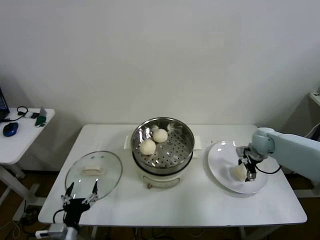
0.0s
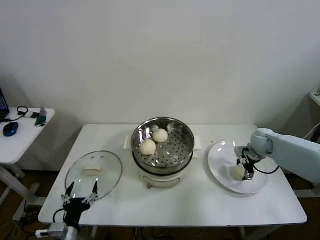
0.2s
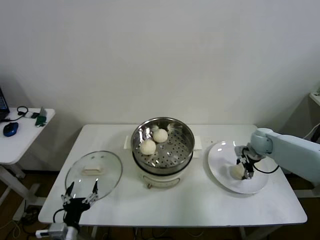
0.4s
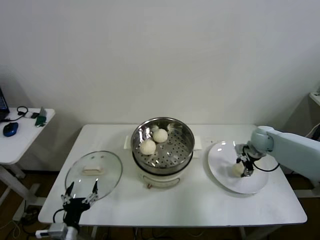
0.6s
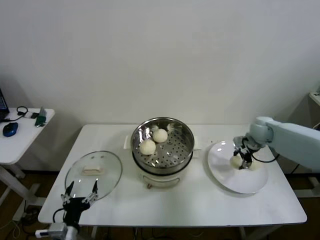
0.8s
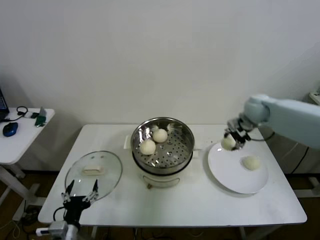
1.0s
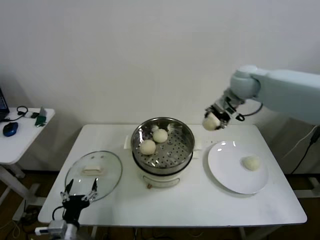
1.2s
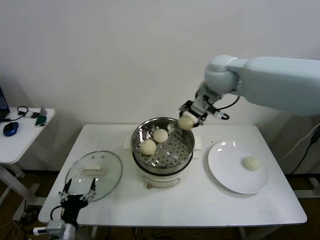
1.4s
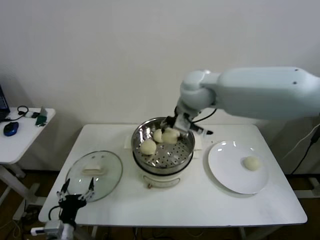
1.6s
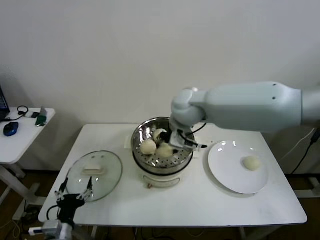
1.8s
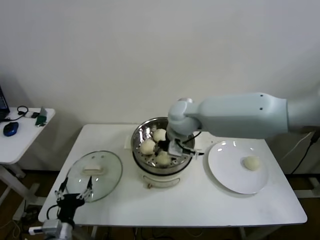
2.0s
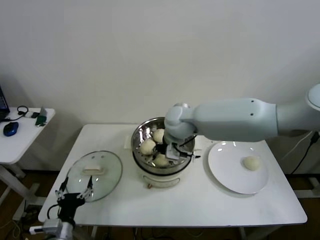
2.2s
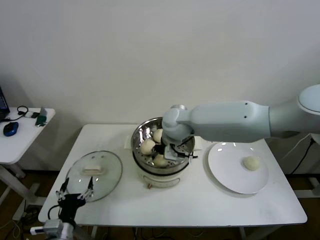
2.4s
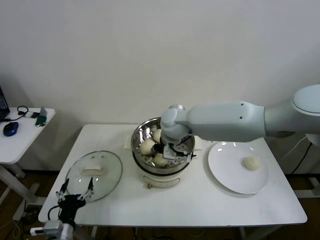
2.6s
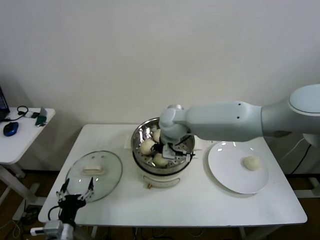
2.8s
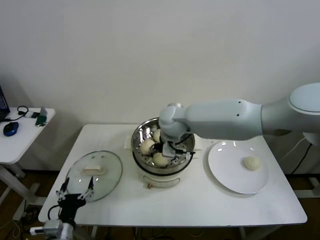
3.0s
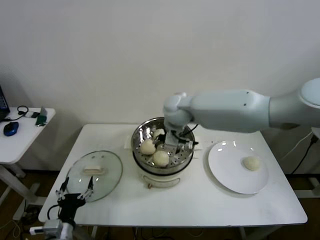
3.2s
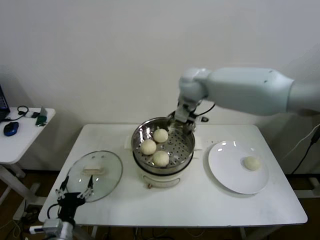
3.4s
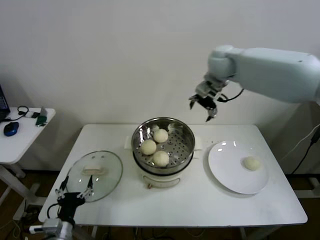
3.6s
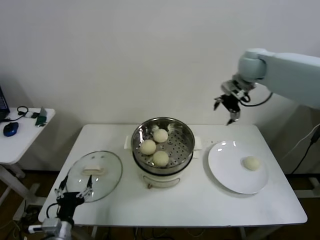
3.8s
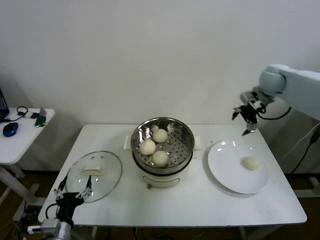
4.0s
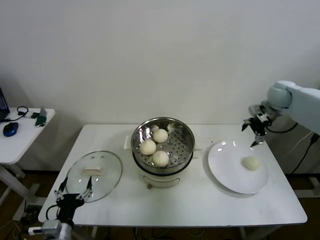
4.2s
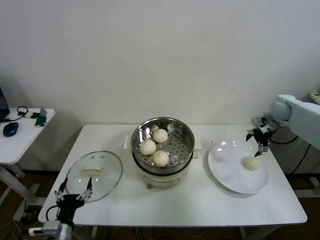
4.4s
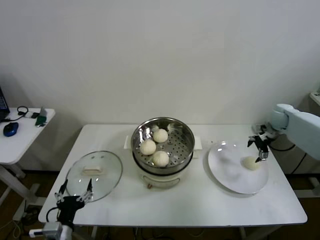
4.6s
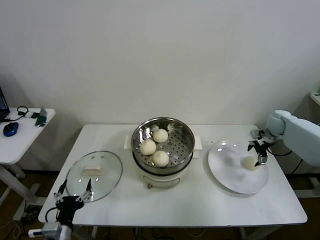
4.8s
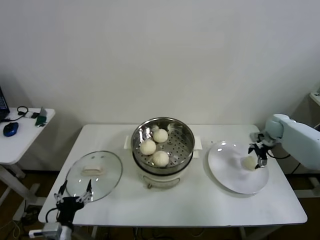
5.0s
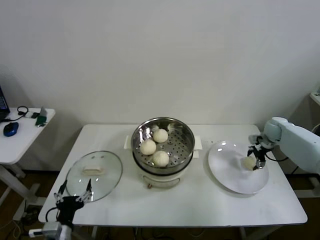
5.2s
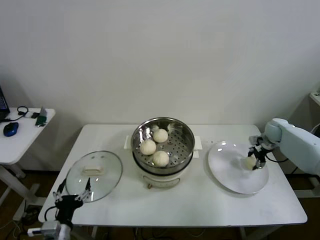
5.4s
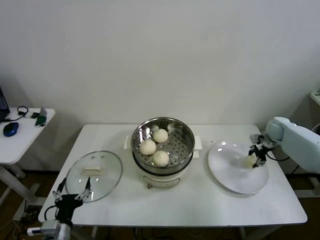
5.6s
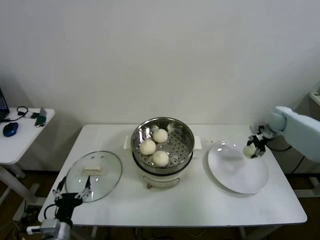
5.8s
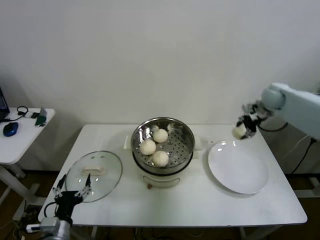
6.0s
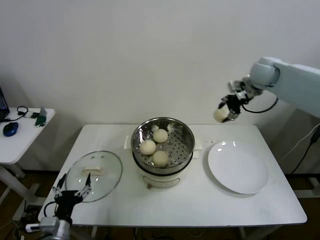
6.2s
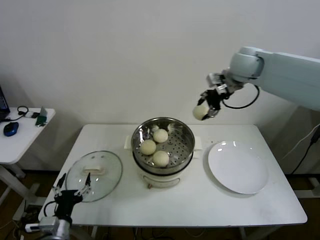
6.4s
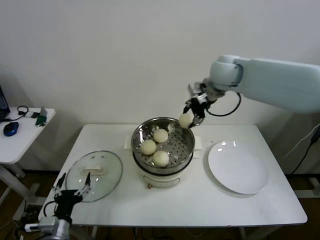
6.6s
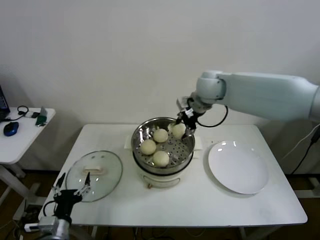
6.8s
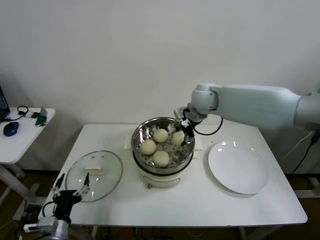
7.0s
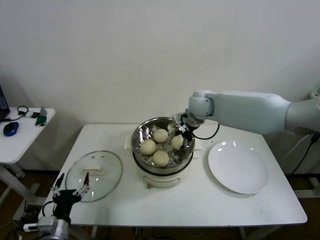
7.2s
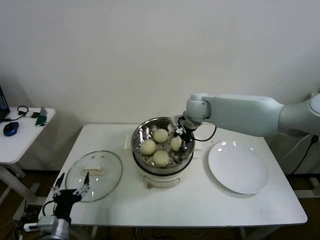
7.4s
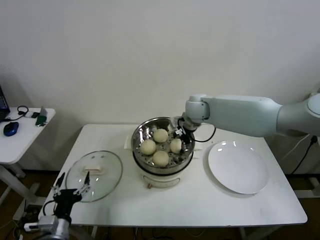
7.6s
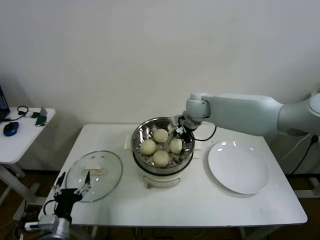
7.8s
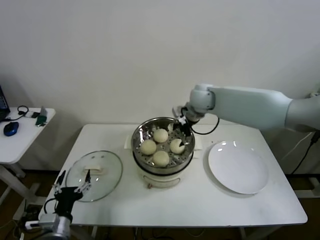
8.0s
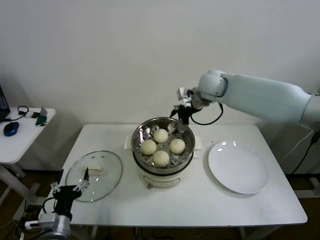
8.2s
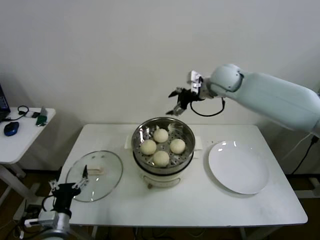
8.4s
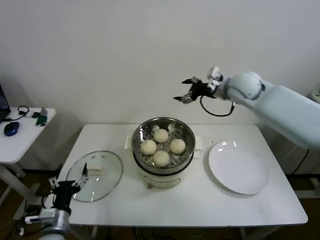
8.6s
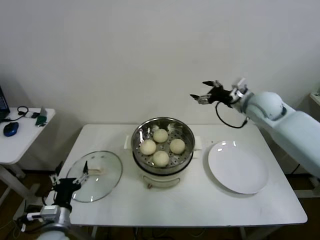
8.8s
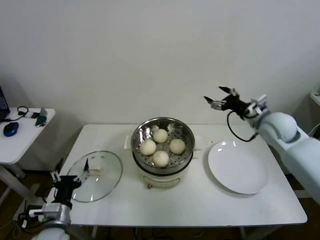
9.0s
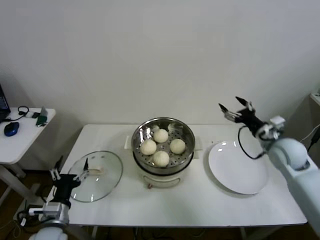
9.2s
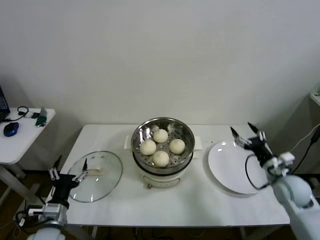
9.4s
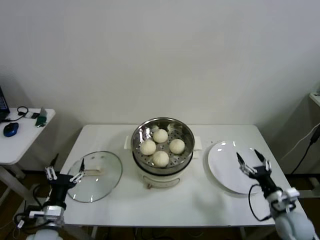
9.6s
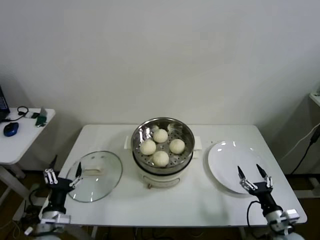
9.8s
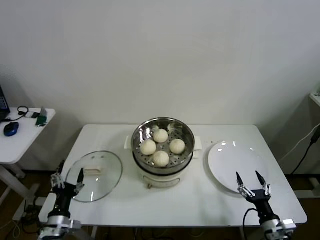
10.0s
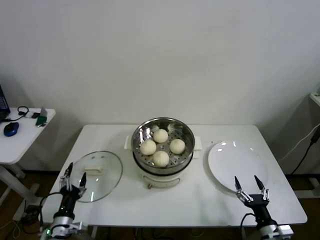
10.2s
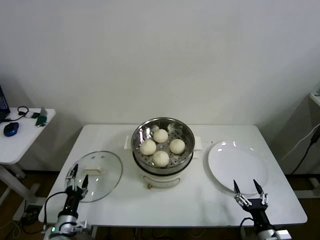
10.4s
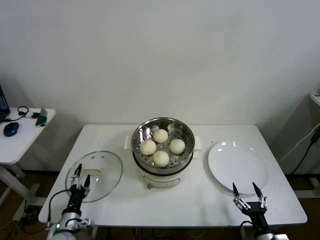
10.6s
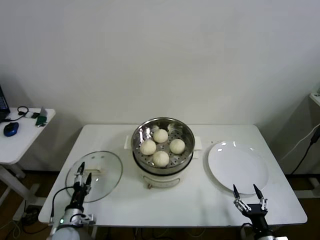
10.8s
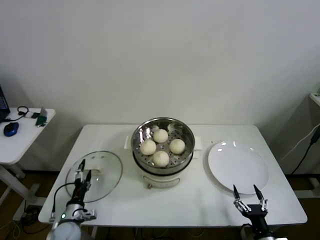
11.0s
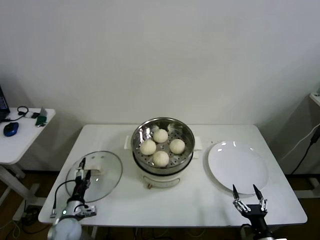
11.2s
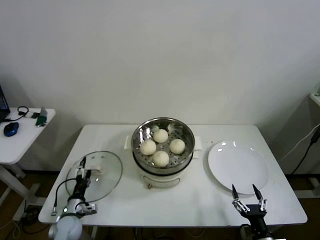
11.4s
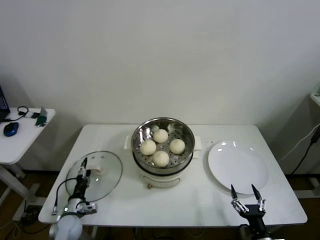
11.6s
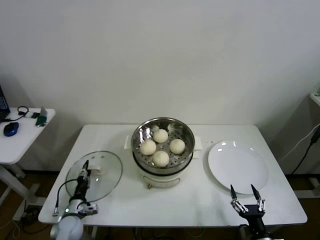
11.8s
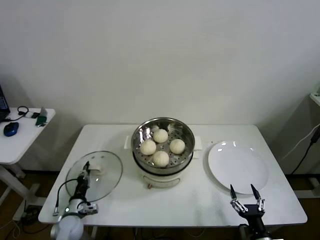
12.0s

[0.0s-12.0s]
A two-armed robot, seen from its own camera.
Step, 0.6s to 2.8s: Place the baozi on the steamer with right gripper.
Step, 3.0s to 5.4s: Grasp the baozi in the plate with right gripper.
Step, 5.6s to 7.6s: Place the baozi on the steamer with right gripper.
Step, 7.8s to 12.0s: Grasp the pot lid with left gripper.
0.0s to 1.6s: The right gripper is displaced to the left and upward by approximately 40 cm, and closes up.
1.6s to 3.0s: The right gripper goes some 10 cm downward and to the left, and opens up.
3.0s to 4.4s: The right gripper shifts approximately 40 cm to the right.
4.4s to 6.0s: The right gripper moves some 10 cm downward and comes back, and closes up.
6.0s to 7.6s: The right gripper is displaced to the left by roughly 30 cm, and opens up.
7.6s to 9.0s: The right gripper moves to the right and backward, approximately 25 cm.
9.0s to 10.4s: The left gripper goes roughly 10 cm downward, while the right gripper moves backward and downward, approximately 40 cm.
10.4s to 12.0s: The left gripper heads forward and downward, covering approximately 10 cm, and closes up.

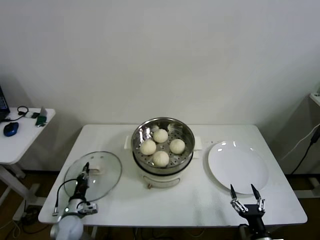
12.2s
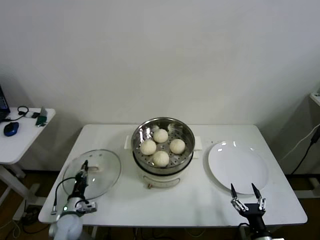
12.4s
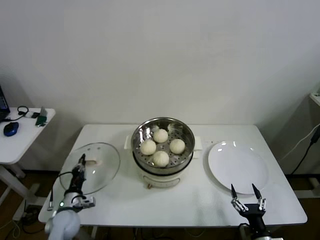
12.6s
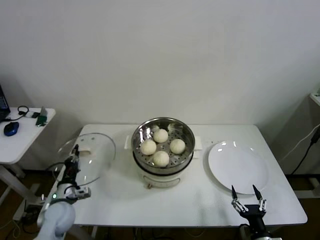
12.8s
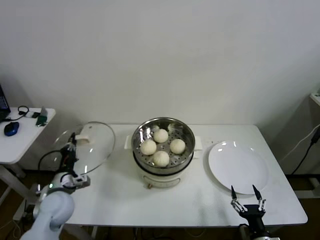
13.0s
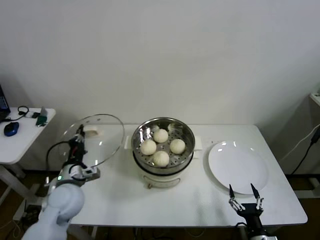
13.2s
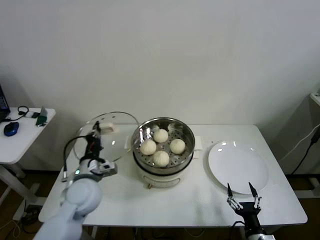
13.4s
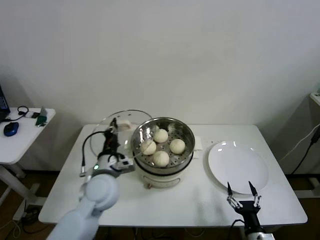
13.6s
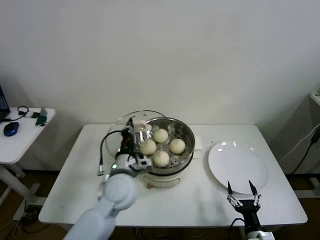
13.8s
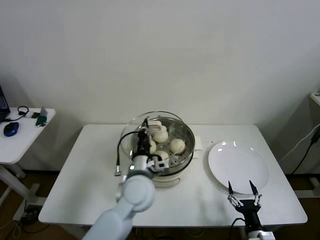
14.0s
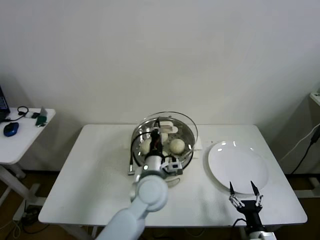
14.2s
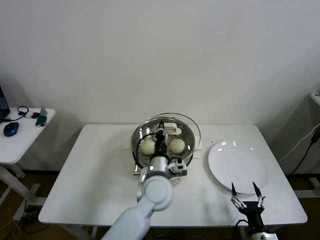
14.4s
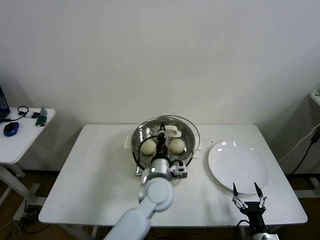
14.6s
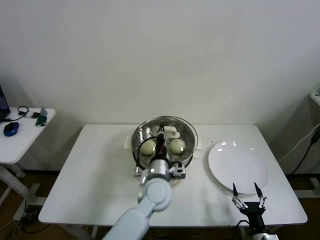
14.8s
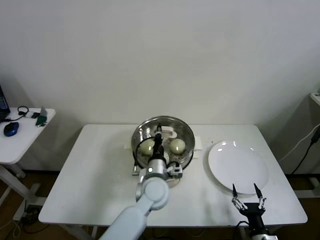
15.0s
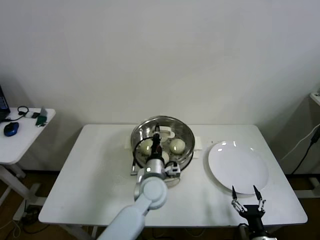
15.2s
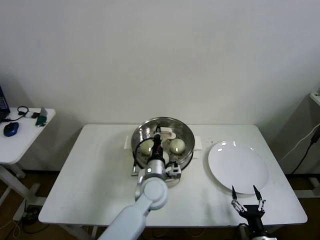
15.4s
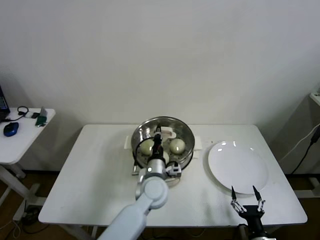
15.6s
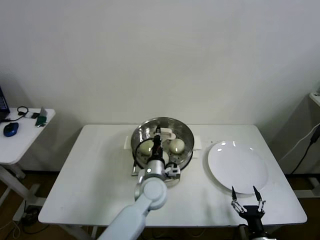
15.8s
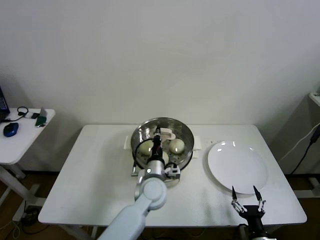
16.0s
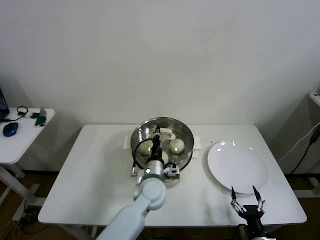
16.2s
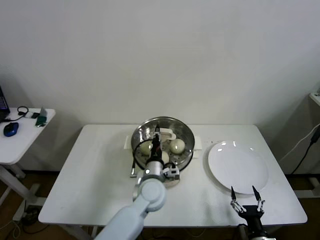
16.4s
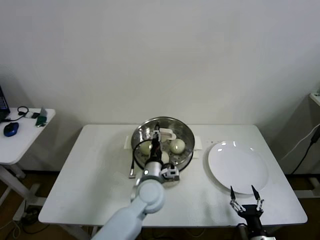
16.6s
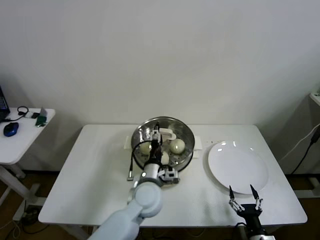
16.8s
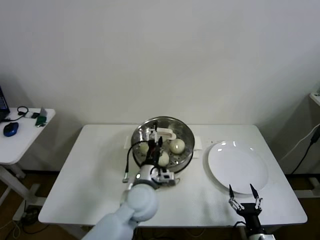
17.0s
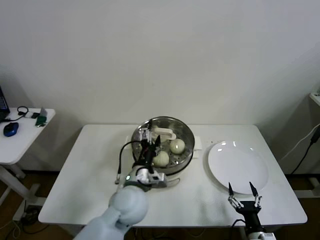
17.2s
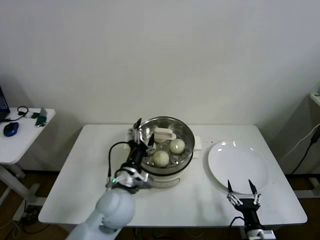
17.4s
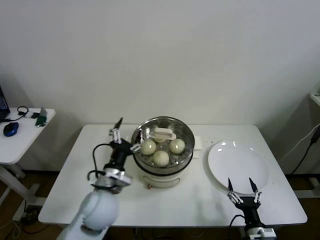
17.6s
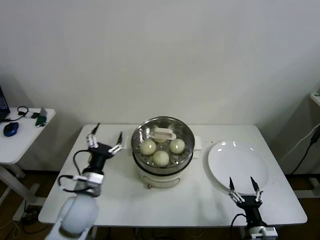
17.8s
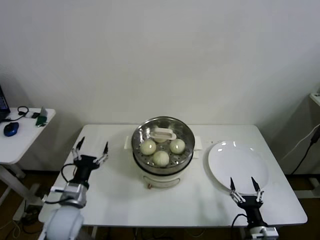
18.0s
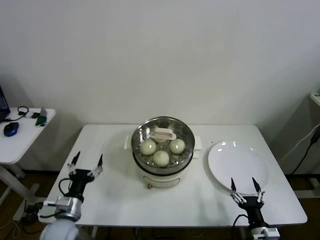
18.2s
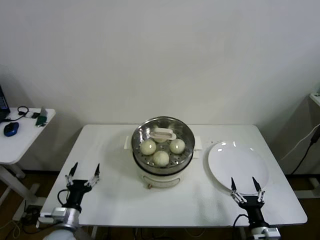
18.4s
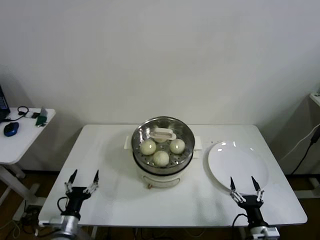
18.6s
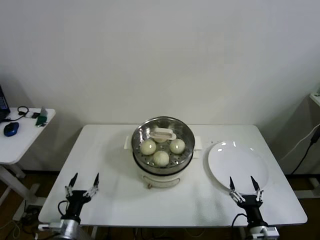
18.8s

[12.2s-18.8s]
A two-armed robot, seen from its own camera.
Step, 12.2s to 16.4s: Place the pot lid on the steamer with left gripper.
12.2s to 13.8s: The left gripper travels upward and to the right by roughly 35 cm.
13.8s to 15.4s: The left gripper moves to the right and downward, roughly 10 cm.
15.4s to 17.2s: The left gripper changes place by about 10 cm, and opens its fingers.
17.2s to 18.8s: The left gripper goes roughly 30 cm to the left, downward and backward.

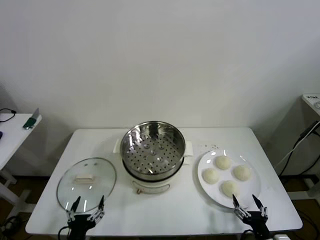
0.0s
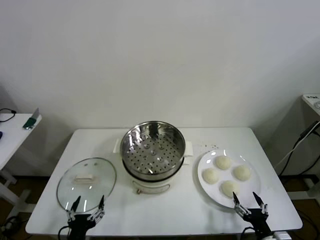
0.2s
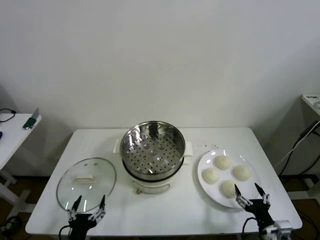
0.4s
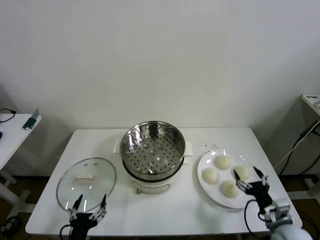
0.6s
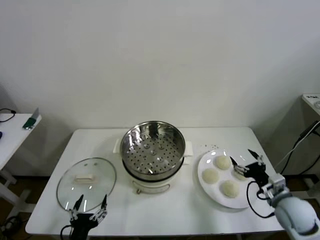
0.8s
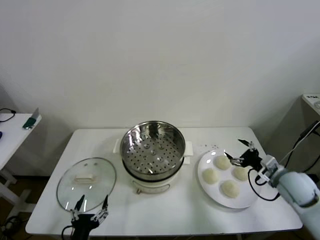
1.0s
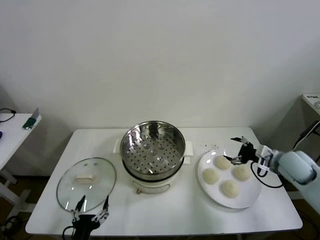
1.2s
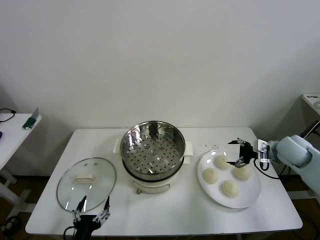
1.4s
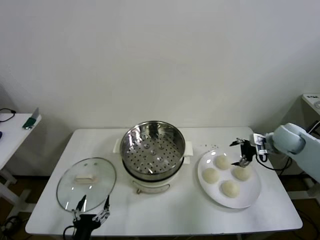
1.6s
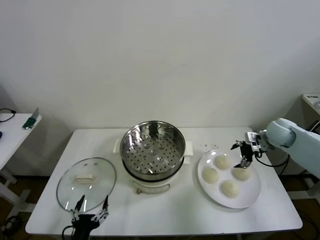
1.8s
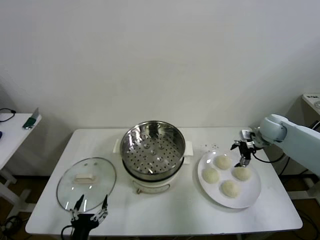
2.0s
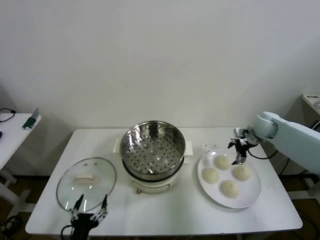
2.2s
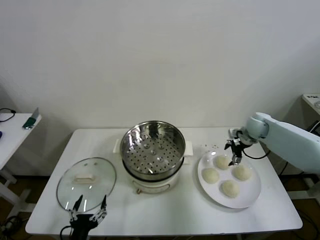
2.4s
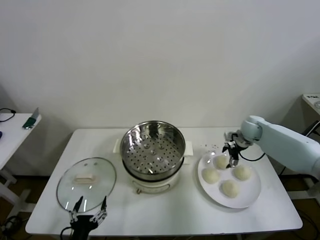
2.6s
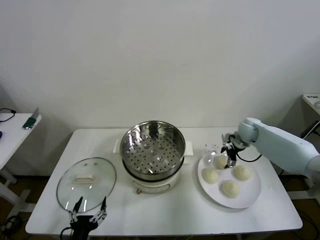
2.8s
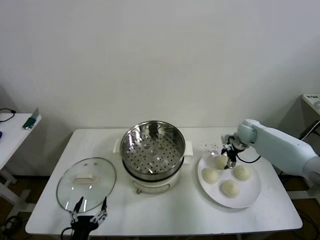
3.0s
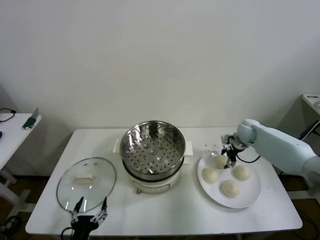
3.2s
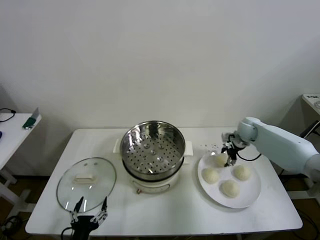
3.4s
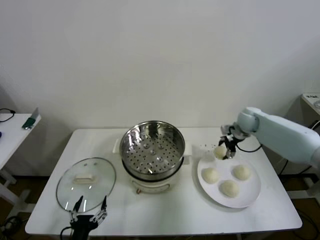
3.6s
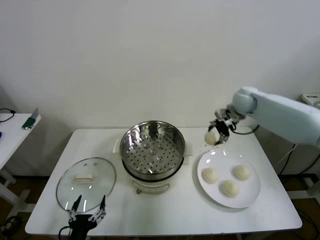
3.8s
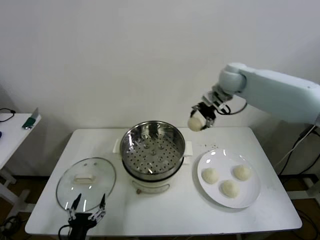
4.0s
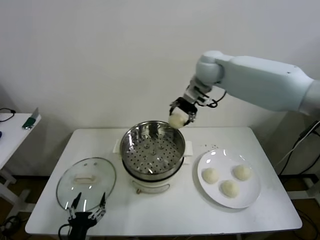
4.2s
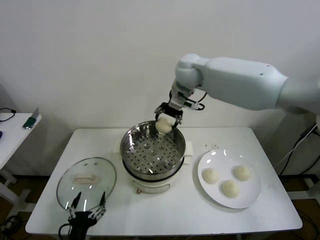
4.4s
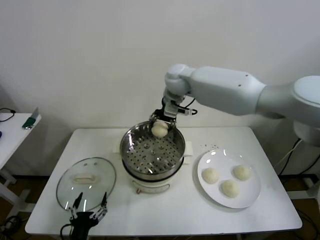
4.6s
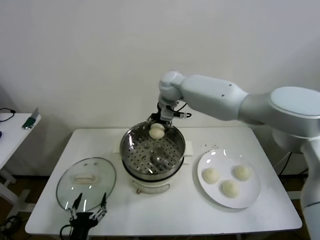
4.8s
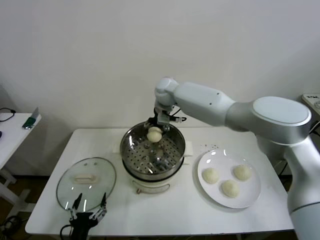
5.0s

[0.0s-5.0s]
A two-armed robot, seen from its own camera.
Step, 0.0s to 3.2s: Grasp the baozi in the plate with right gripper.
1.6s to 3.4s: The right gripper is displaced forward and to the left by some 10 cm, and closes up.
3.4s to 5.0s: The right gripper shifts some 35 cm to the left.
